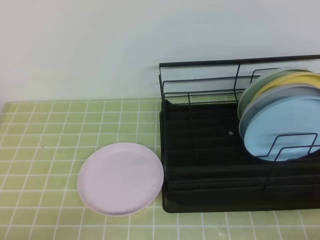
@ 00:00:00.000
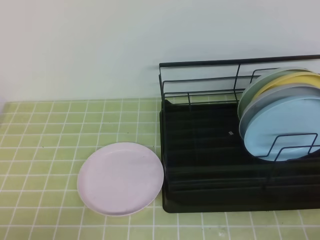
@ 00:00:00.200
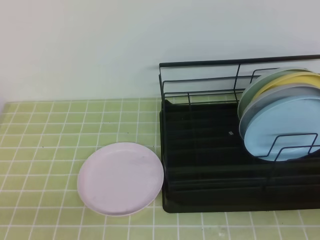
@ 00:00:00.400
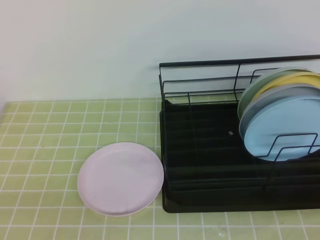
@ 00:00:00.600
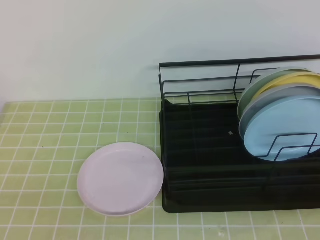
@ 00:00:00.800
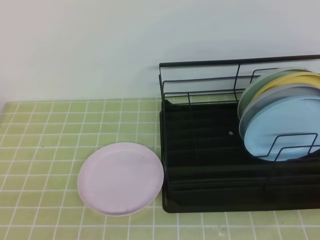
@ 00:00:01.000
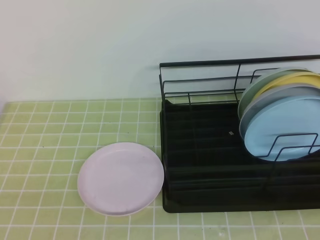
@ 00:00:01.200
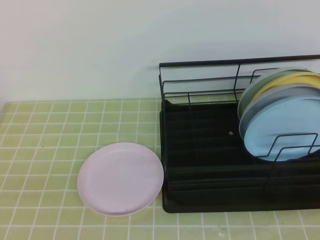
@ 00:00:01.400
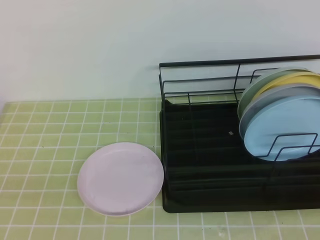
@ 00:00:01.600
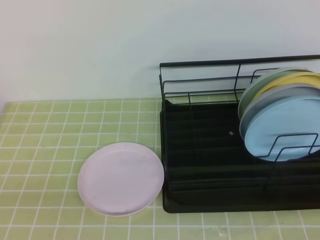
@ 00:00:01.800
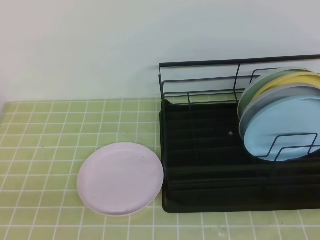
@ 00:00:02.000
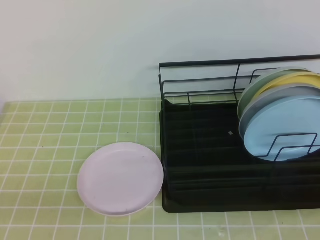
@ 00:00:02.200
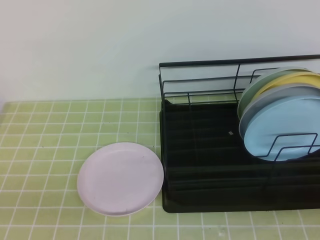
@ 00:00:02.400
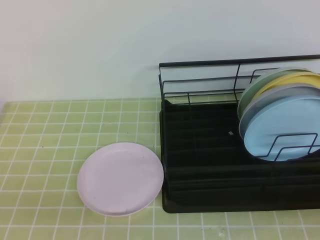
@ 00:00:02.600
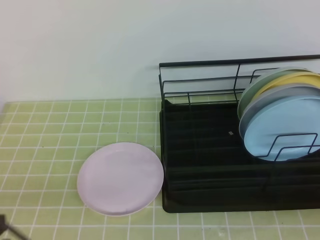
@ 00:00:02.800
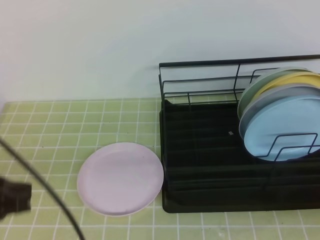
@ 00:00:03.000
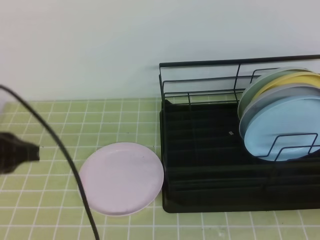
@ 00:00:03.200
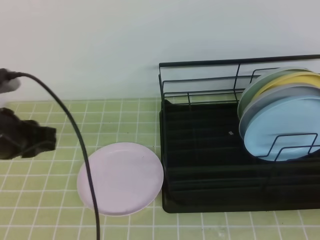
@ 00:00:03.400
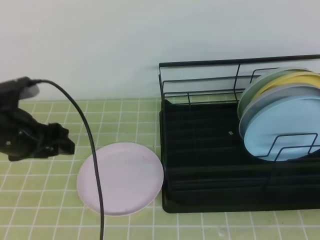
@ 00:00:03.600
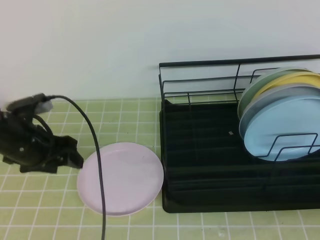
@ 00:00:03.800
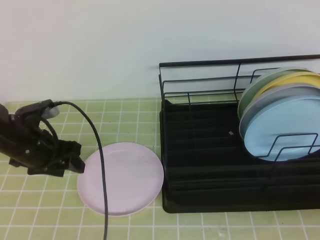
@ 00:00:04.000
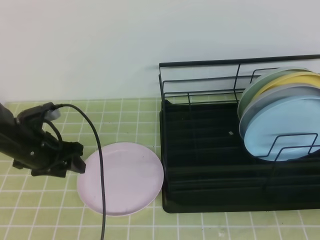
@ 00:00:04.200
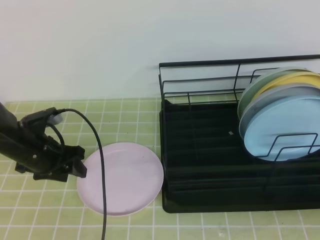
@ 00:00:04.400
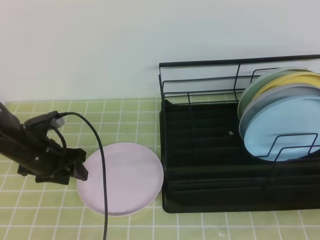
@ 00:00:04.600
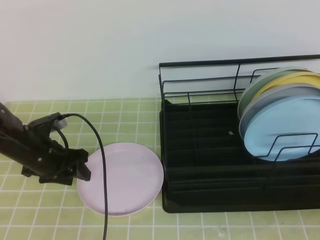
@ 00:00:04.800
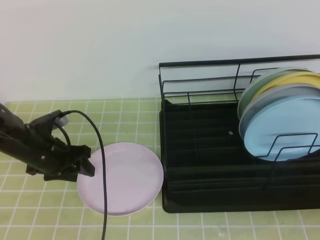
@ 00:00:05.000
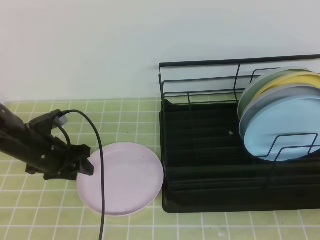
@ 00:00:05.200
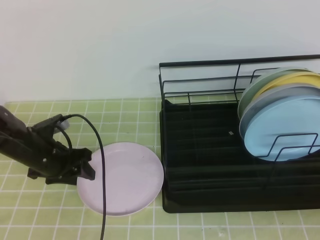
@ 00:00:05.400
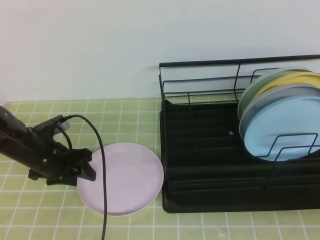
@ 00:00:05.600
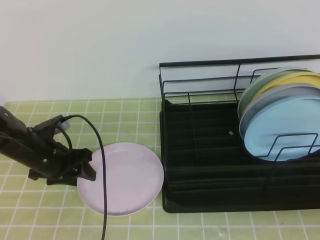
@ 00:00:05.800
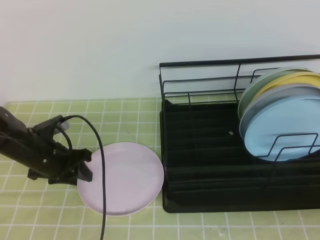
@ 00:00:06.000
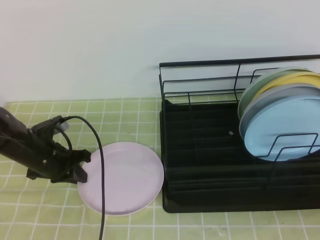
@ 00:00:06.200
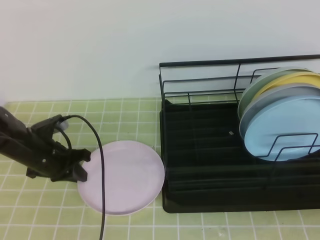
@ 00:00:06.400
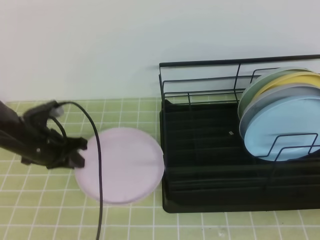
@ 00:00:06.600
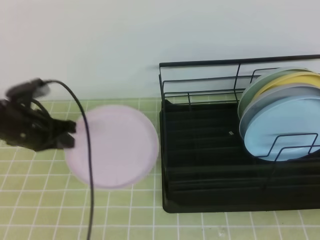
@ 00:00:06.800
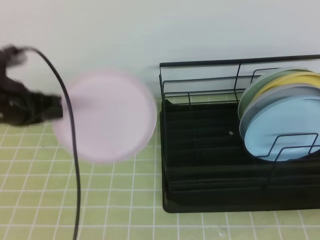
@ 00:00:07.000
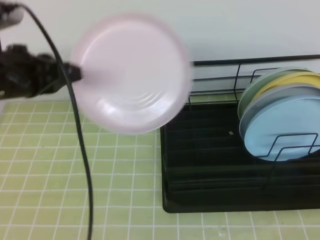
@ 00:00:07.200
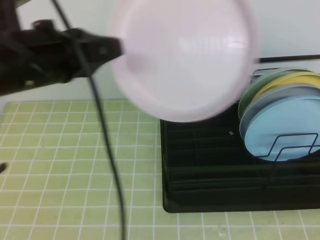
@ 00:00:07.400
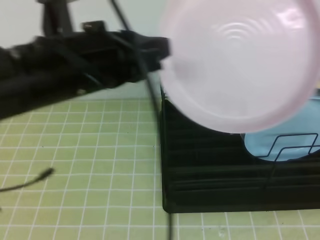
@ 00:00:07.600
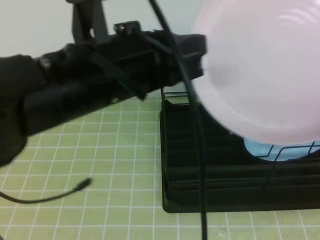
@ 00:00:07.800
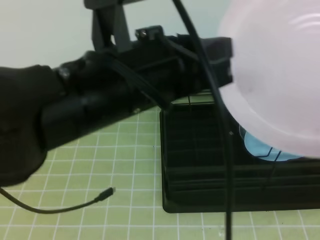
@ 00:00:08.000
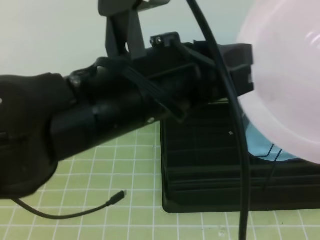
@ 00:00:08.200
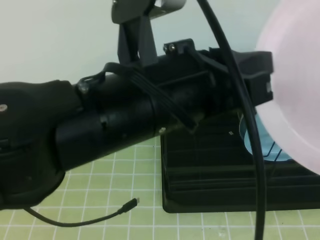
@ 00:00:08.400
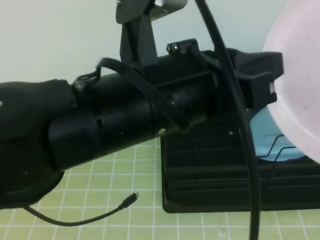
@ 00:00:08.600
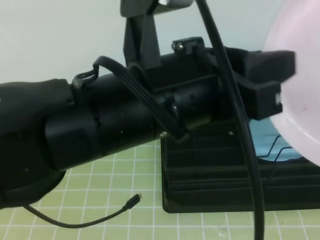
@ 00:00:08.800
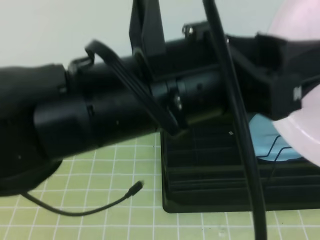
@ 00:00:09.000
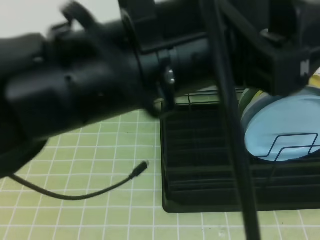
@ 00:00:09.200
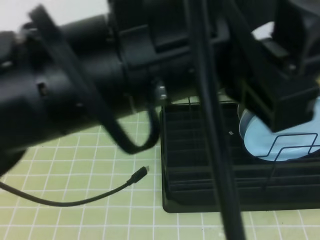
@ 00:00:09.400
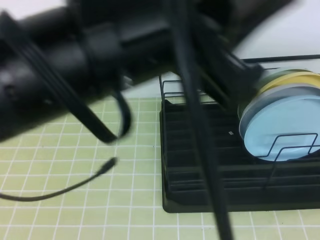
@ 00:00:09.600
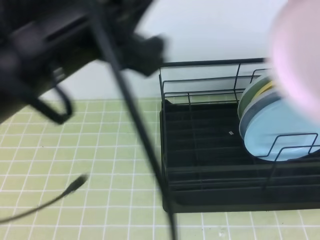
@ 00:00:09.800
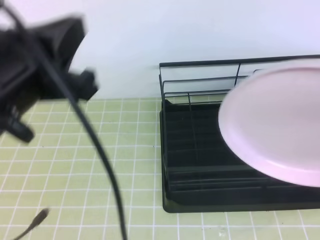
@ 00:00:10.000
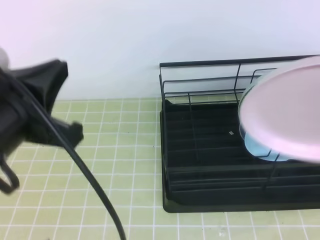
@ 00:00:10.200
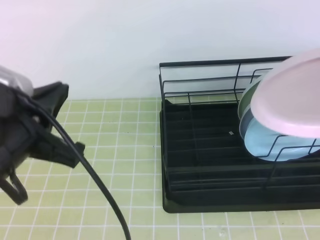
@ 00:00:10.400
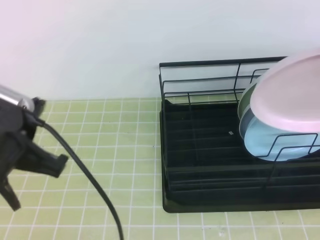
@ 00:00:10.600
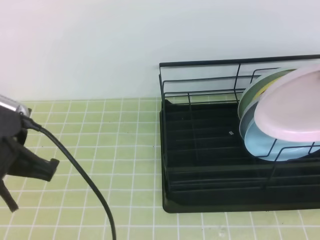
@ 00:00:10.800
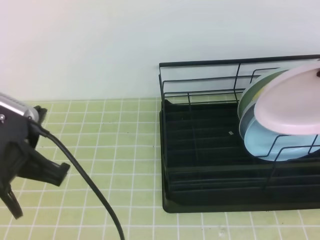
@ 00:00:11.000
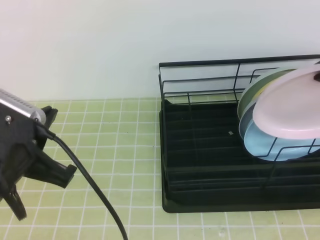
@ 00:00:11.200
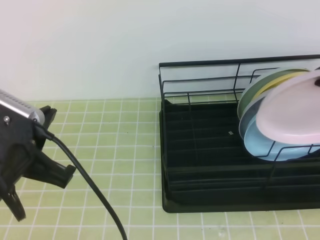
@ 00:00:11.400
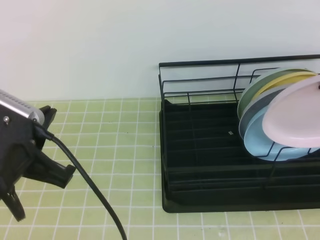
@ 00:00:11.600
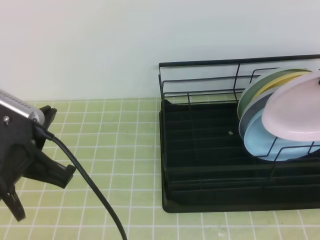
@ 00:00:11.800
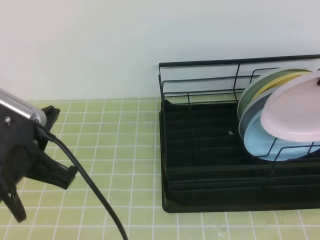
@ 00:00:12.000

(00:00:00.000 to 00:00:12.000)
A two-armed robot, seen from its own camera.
00:00:01.600 - 00:00:03.000: The left gripper is displaced forward by about 15 cm.
00:00:03.000 - 00:00:04.400: The left gripper heads forward and downward, covering approximately 25 cm, and opens up.
00:00:04.400 - 00:00:06.000: The left gripper closes its fingers.
00:00:06.000 - 00:00:07.600: The left gripper is displaced upward, backward and to the right by some 30 cm, and closes its fingers; the right gripper shifts roughly 10 cm upward, and opens.
00:00:07.600 - 00:00:09.000: The left gripper moves backward and to the right, about 10 cm, and opens its fingers. The right gripper closes its fingers.
00:00:09.000 - 00:00:10.400: The right gripper shifts approximately 15 cm forward and upward; the left gripper travels to the left and downward by roughly 20 cm, and closes its fingers.
00:00:10.400 - 00:00:12.000: The right gripper shifts roughly 15 cm forward and downward.

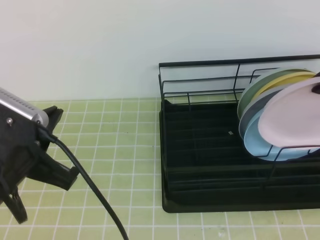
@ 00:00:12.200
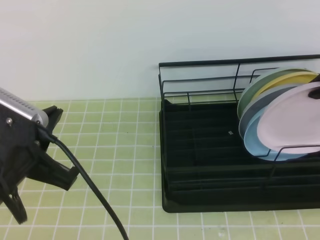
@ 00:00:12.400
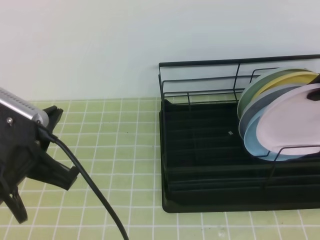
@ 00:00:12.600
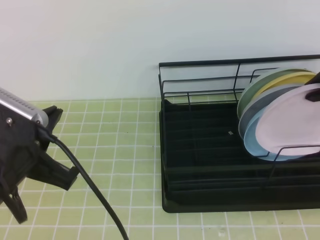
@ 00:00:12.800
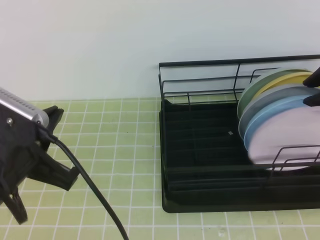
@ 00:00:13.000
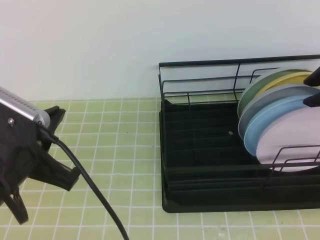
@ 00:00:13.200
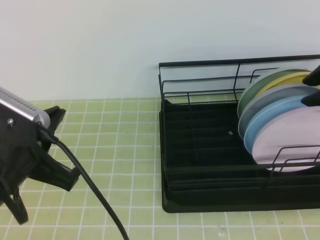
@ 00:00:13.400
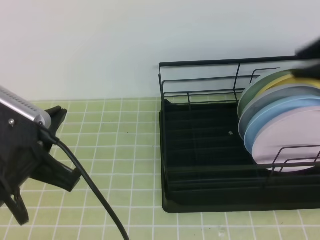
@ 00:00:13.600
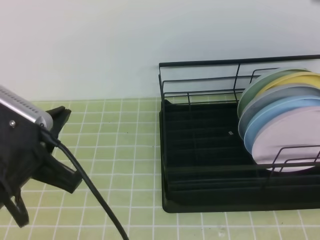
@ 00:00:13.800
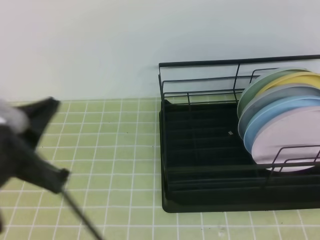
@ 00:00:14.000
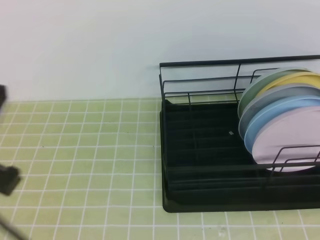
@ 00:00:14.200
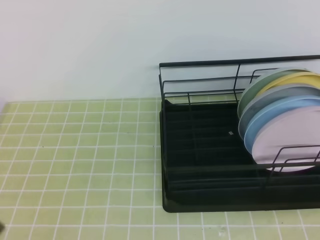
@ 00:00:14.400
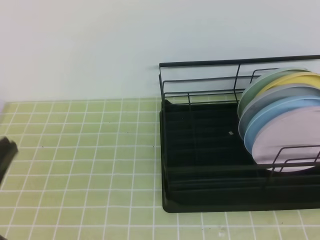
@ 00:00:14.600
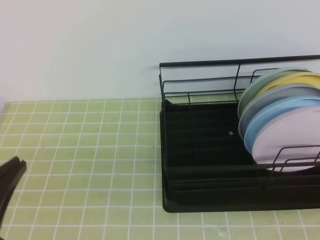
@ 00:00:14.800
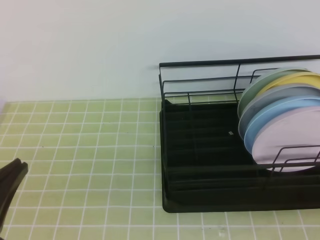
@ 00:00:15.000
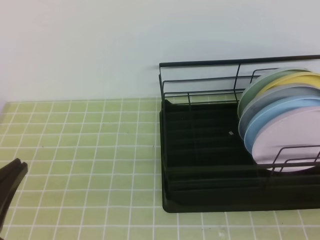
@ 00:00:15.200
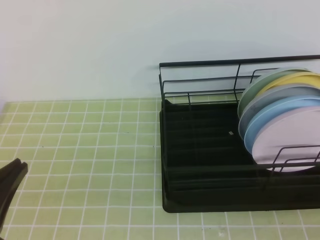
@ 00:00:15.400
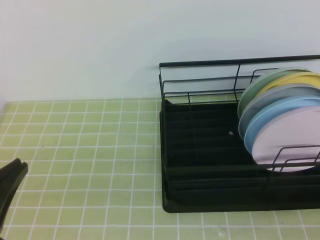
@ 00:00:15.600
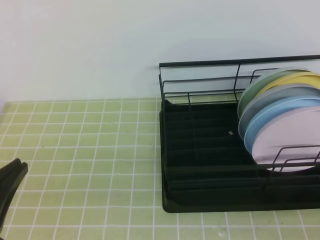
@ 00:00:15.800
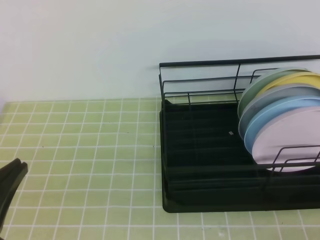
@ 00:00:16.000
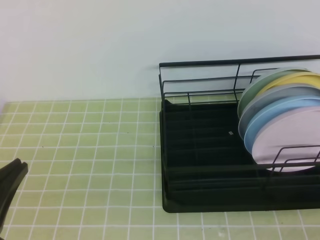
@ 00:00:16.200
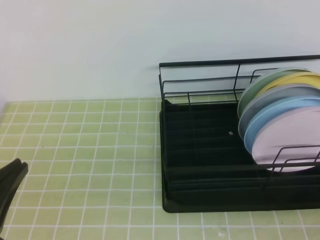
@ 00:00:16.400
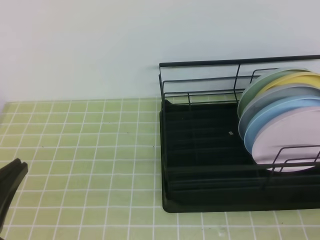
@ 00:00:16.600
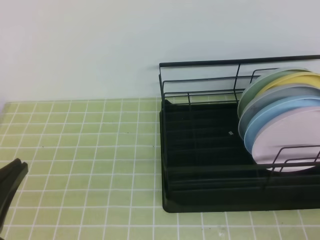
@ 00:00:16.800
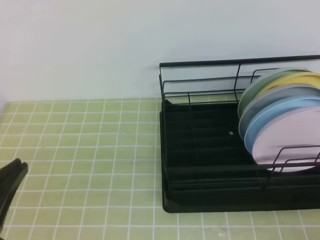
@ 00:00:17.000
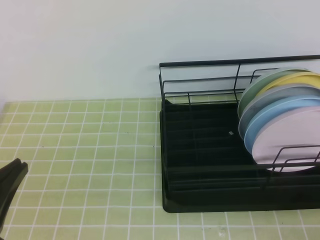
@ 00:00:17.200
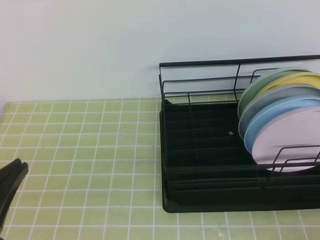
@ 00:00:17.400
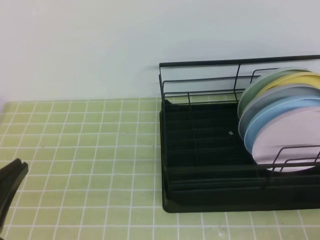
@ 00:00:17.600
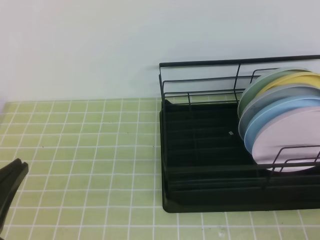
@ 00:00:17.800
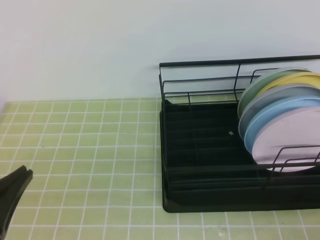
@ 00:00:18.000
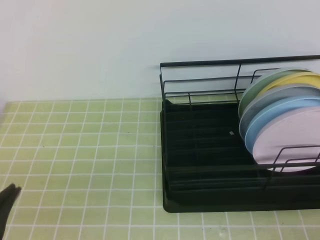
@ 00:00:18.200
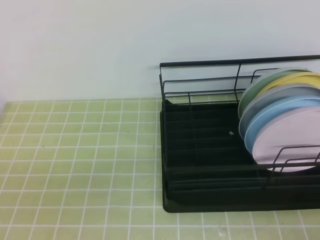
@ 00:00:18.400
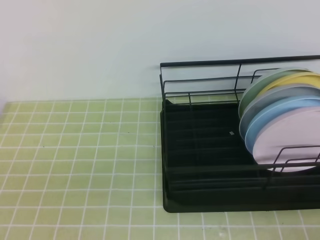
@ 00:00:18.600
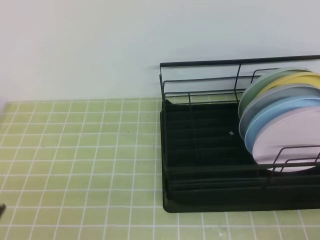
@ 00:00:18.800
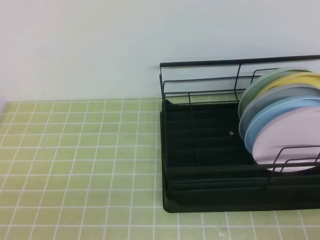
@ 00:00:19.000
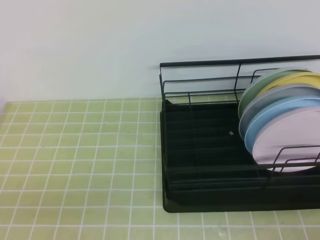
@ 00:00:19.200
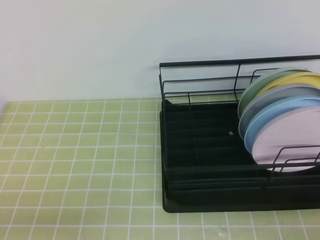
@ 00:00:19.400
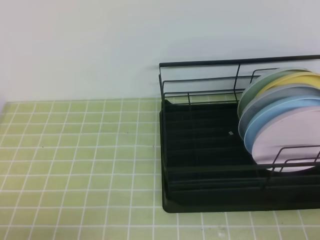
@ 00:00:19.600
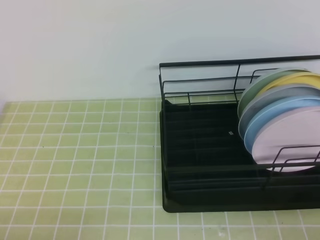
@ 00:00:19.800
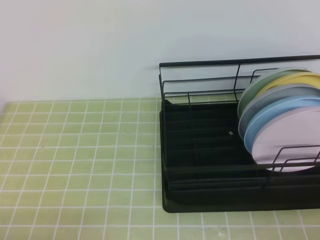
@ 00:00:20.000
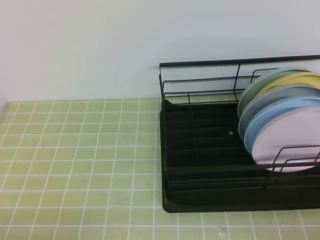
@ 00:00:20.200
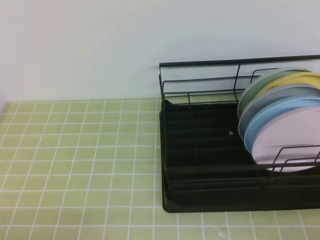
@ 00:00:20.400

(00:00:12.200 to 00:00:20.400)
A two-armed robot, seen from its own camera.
00:00:12.200 - 00:00:13.800: The right gripper goes some 10 cm upward.
00:00:13.800 - 00:00:15.400: The right gripper is displaced backward and downward by about 30 cm, and closes up. The left gripper is displaced backward by approximately 5 cm.
00:00:17.200 - 00:00:18.800: There are only small adjustments of the grippers.
